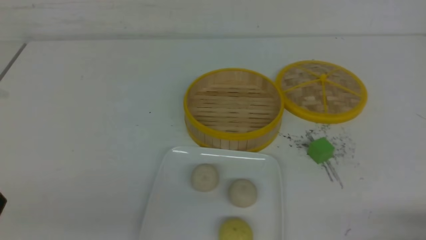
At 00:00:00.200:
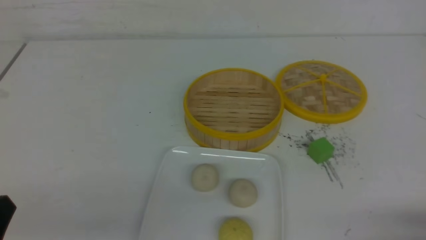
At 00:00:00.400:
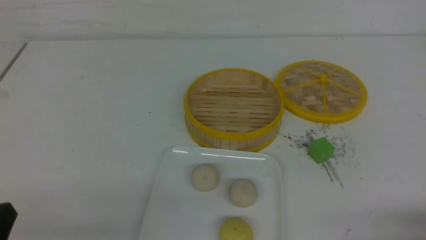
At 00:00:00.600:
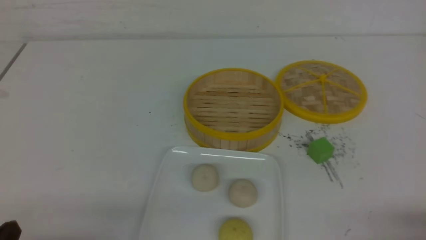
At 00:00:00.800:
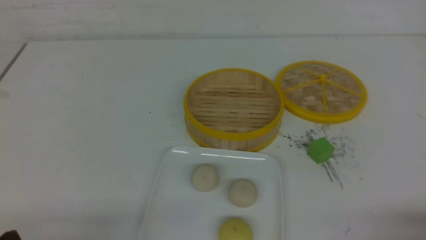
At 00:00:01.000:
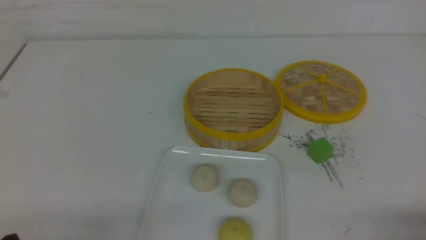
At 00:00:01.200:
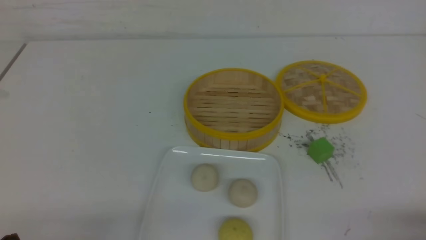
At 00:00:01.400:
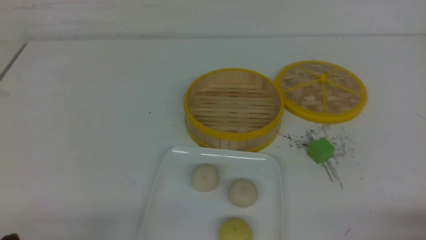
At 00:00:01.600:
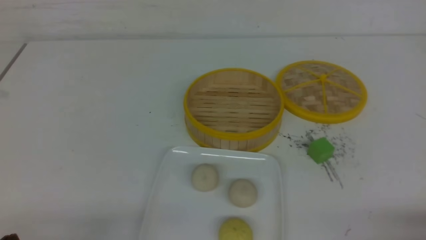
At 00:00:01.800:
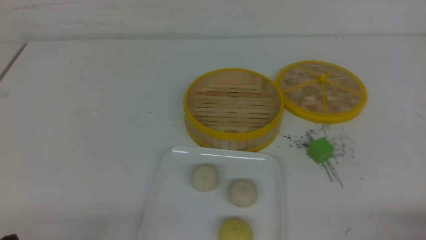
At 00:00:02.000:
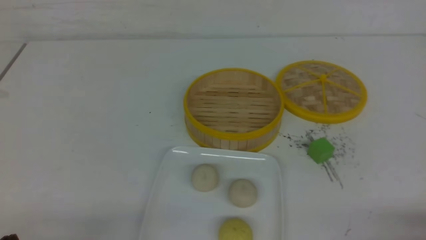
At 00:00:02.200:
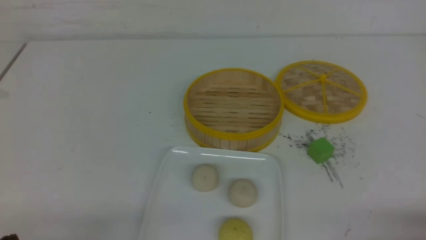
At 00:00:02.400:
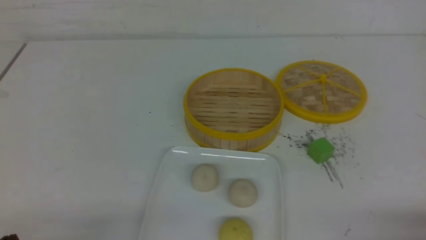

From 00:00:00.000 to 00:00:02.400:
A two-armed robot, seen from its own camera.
From 00:00:01.200 to 00:00:02.400: Neither gripper changes place.
